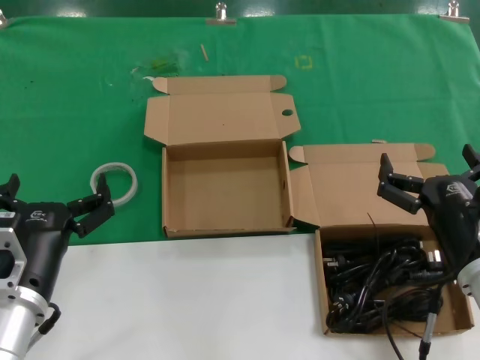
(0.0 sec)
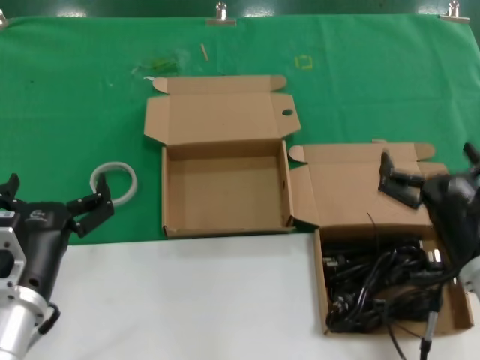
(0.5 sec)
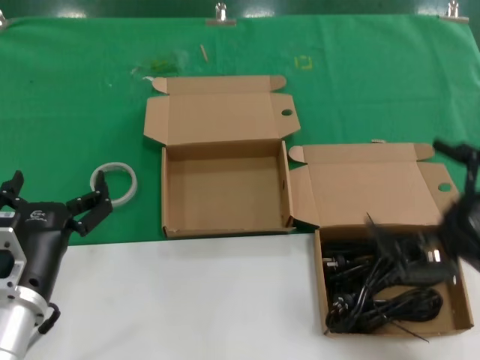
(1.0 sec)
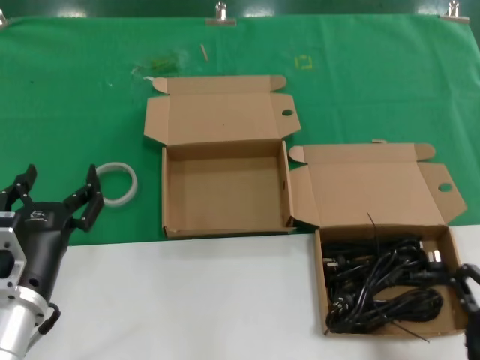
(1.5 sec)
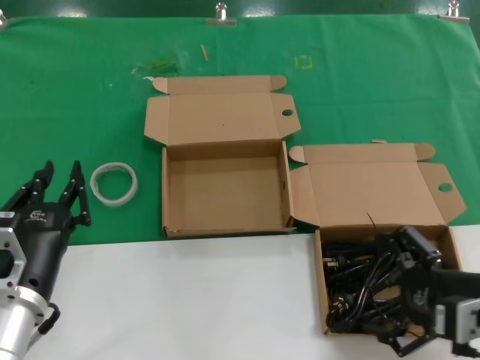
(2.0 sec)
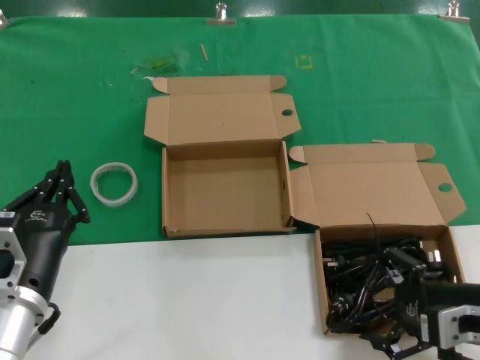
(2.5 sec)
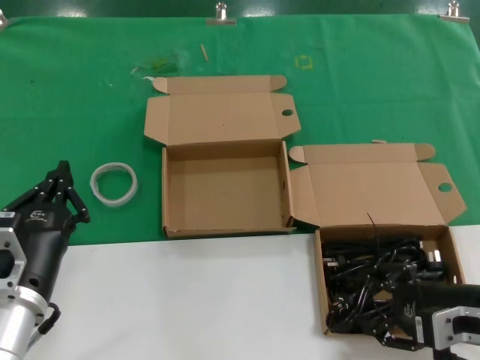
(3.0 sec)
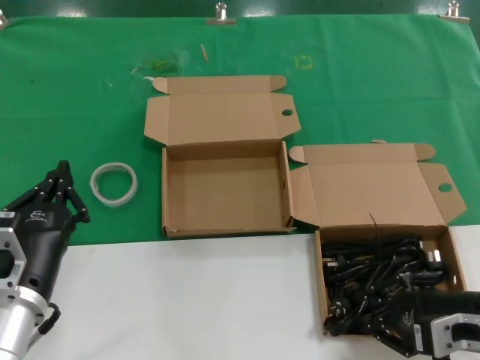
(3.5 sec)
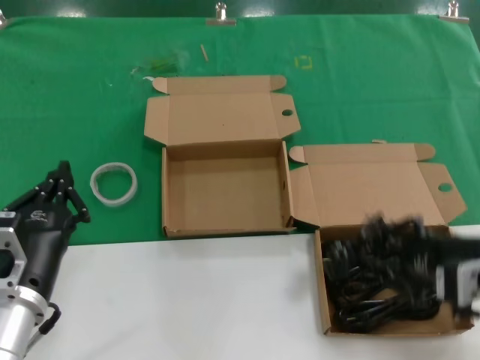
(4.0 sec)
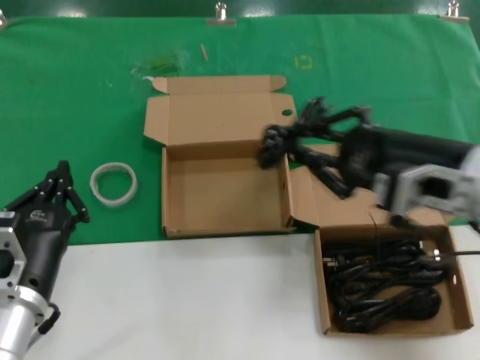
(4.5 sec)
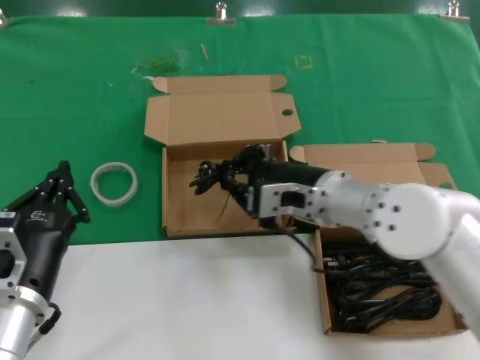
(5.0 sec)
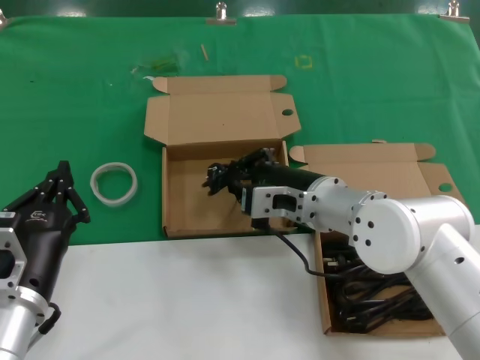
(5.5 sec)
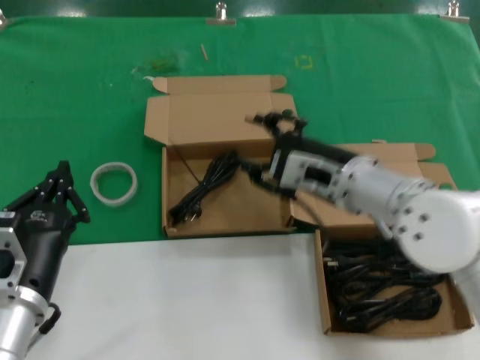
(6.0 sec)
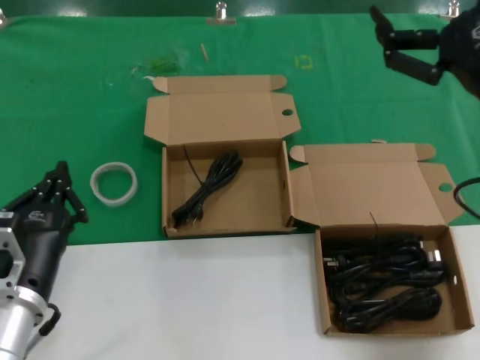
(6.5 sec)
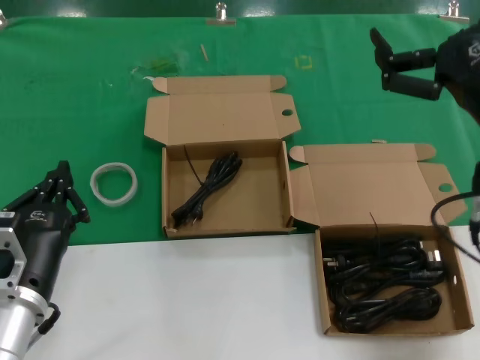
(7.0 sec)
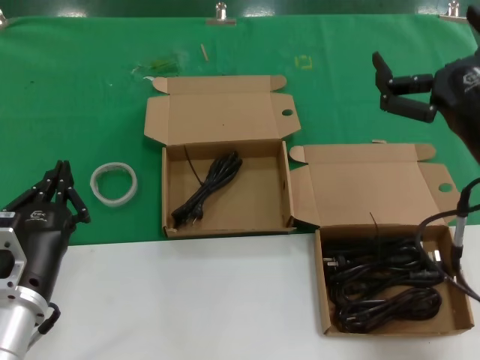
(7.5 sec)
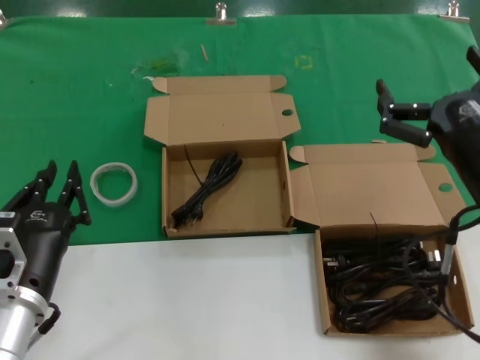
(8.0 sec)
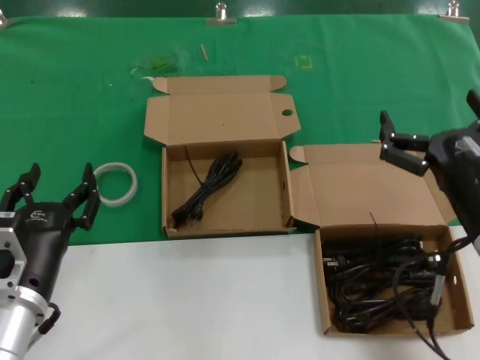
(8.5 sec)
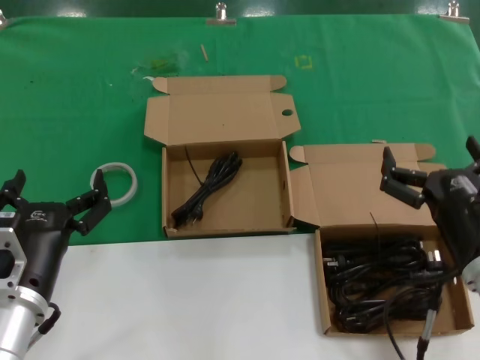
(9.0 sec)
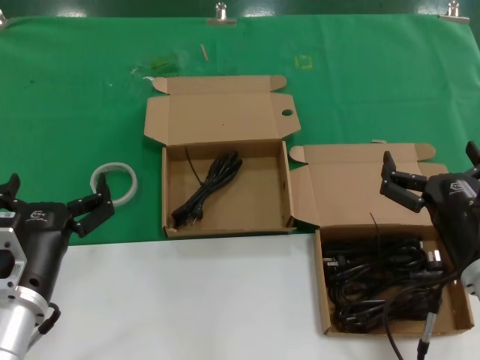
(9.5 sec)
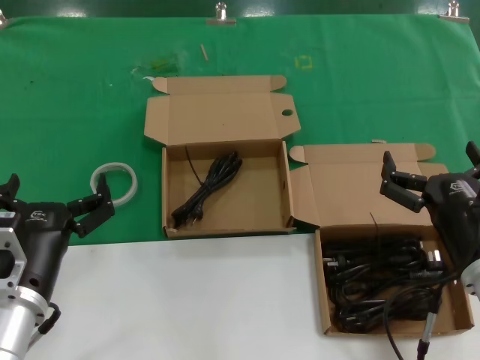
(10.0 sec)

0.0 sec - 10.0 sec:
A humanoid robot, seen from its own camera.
Task of the whole recording: Pick up the power cord from the box containing it and place it in another box.
Step, 0.0 sec - 3.5 sec: Grasp the data cable.
Step, 4.0 sec - 5.5 sec: Place the data cable in the another box.
0.0 sec - 2.0 sec: The right hand moves to the right and upward, approximately 10 cm.
2.0 sec - 4.0 sec: There are only small adjustments of the hands.
4.0 sec - 6.0 sec: The right hand travels to the left and forward by approximately 20 cm.
6.0 sec - 8.0 sec: The right hand shifts roughly 15 cm to the right and backward.
8.0 sec - 10.0 sec: The right hand moves downward, about 10 cm.
